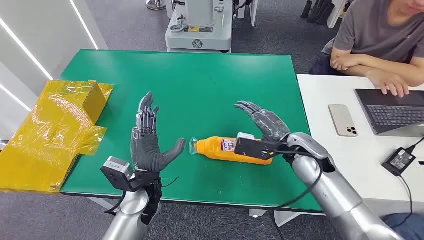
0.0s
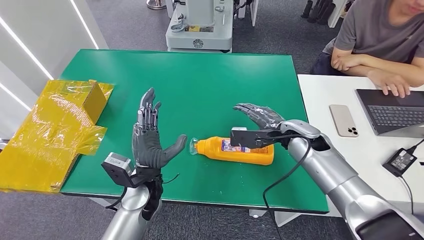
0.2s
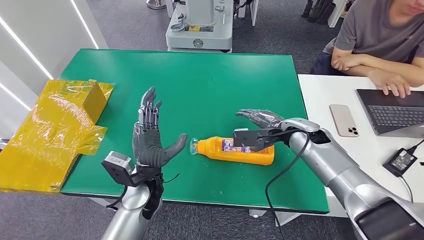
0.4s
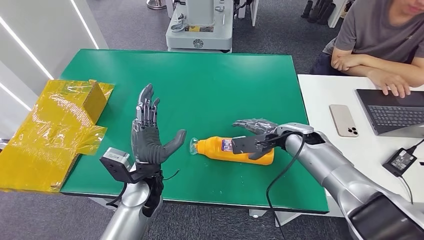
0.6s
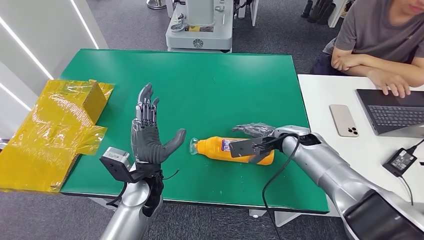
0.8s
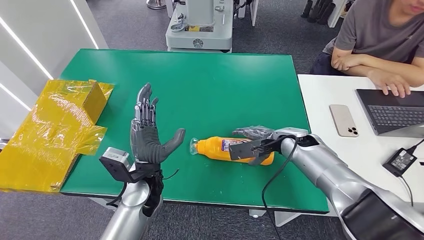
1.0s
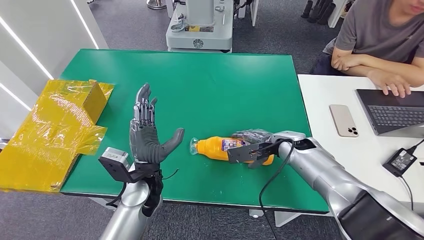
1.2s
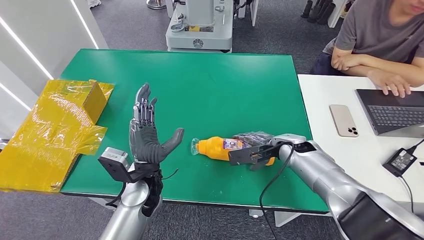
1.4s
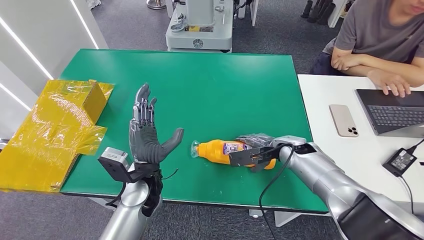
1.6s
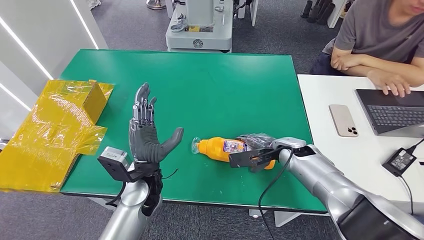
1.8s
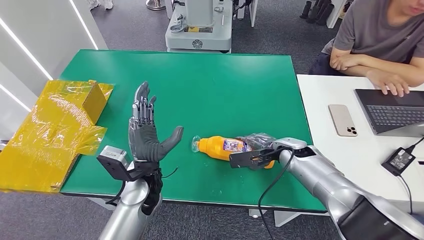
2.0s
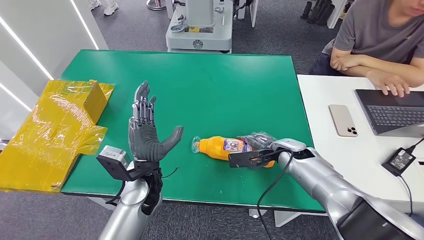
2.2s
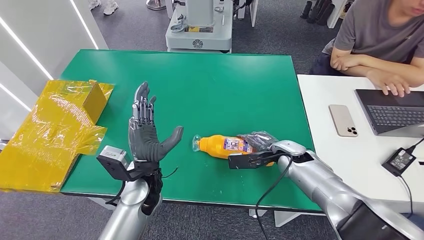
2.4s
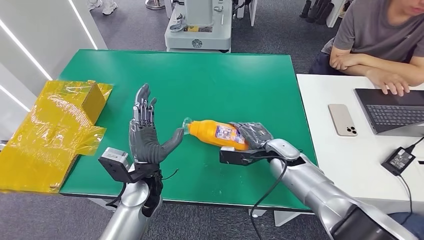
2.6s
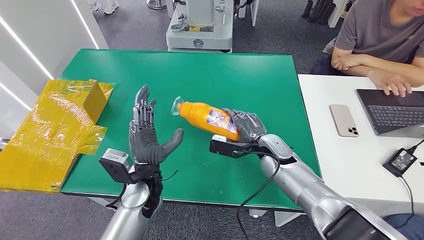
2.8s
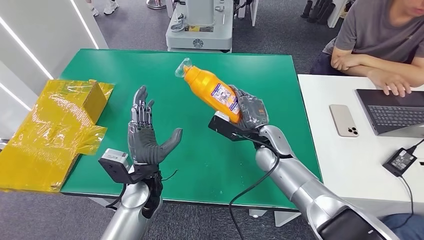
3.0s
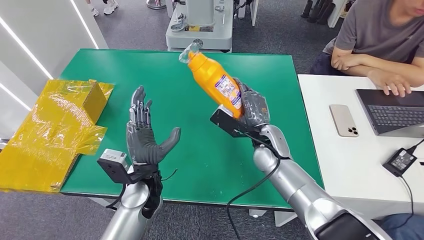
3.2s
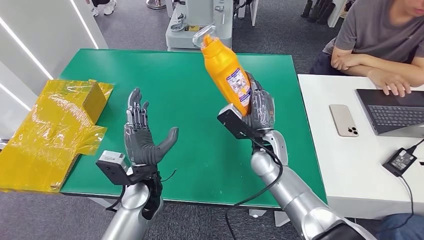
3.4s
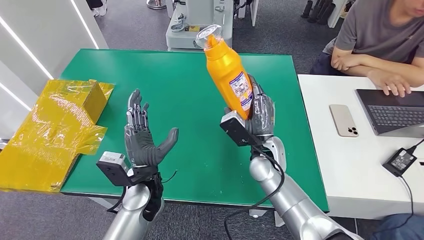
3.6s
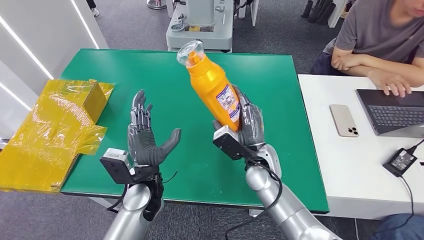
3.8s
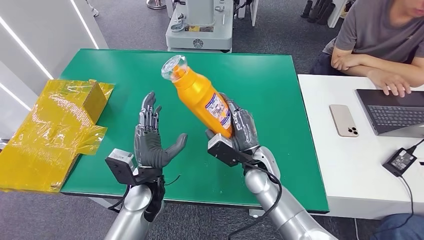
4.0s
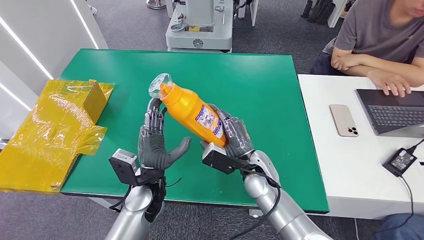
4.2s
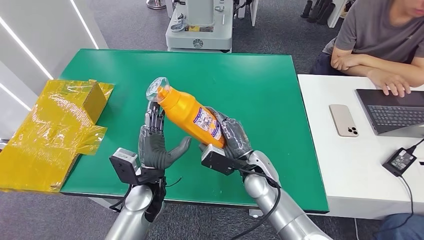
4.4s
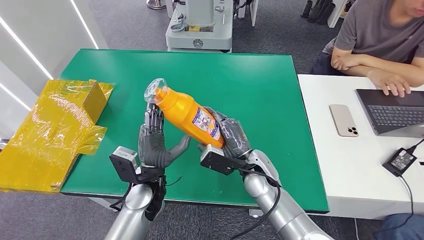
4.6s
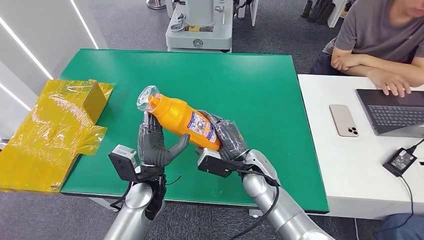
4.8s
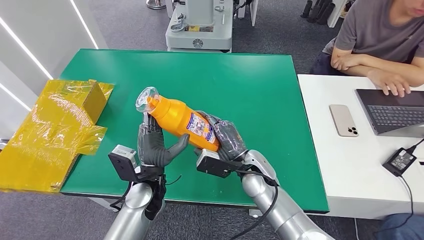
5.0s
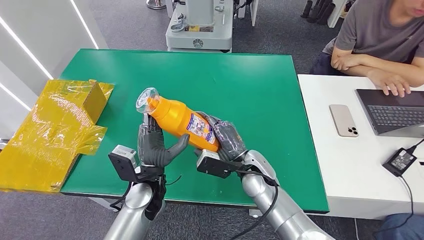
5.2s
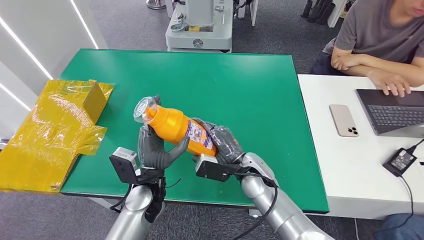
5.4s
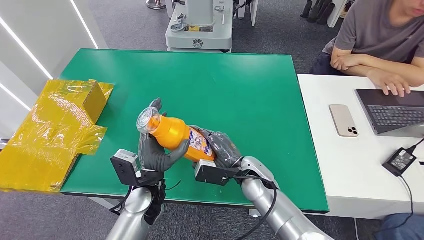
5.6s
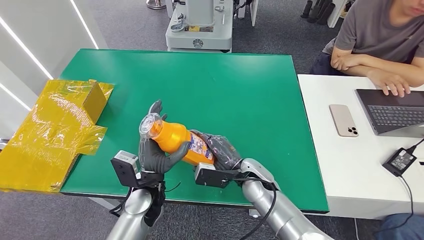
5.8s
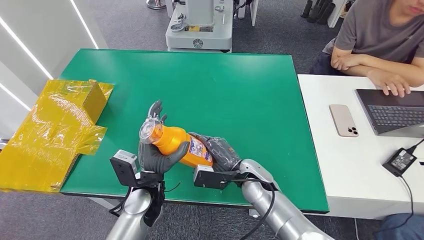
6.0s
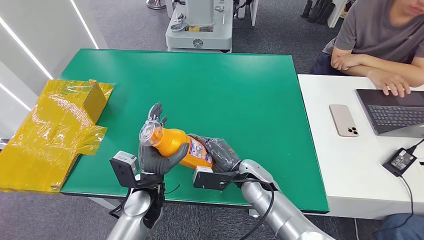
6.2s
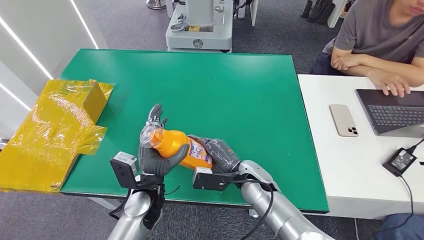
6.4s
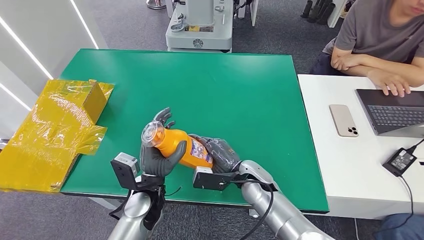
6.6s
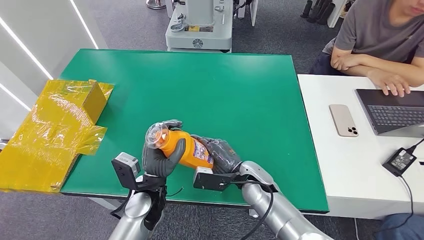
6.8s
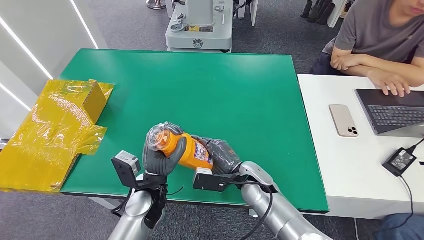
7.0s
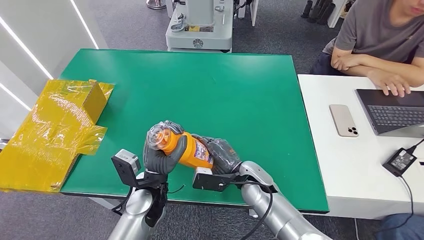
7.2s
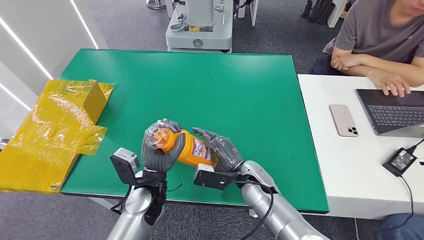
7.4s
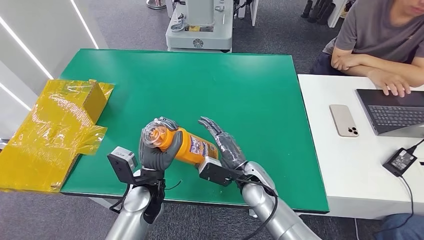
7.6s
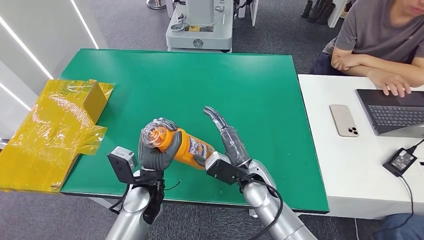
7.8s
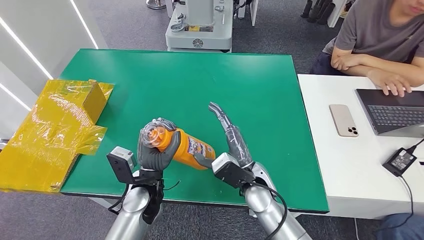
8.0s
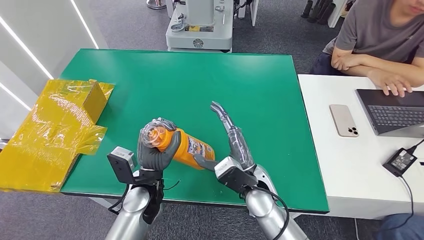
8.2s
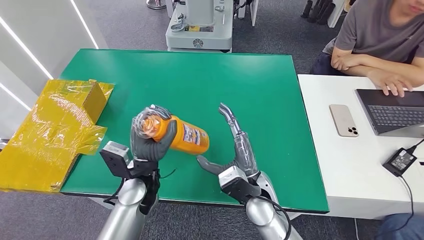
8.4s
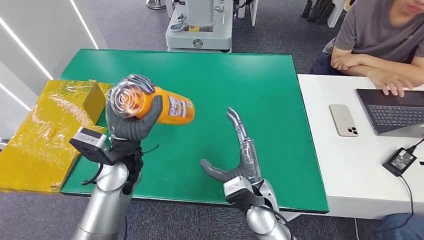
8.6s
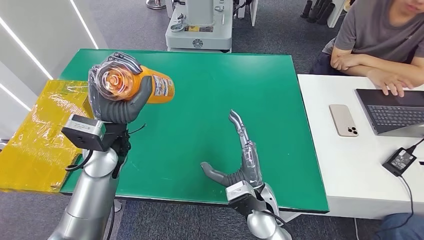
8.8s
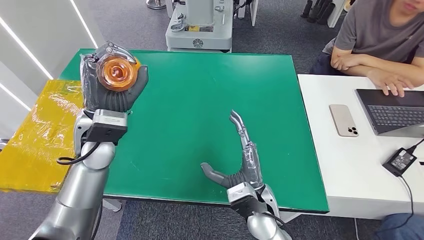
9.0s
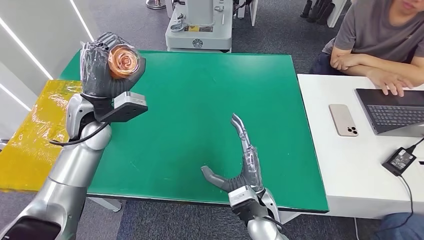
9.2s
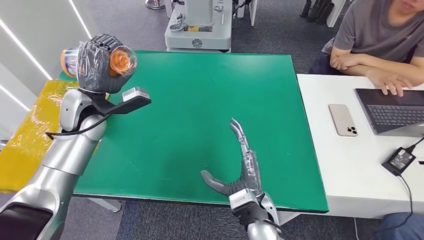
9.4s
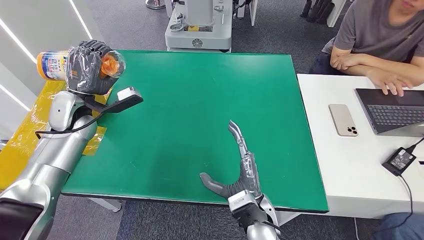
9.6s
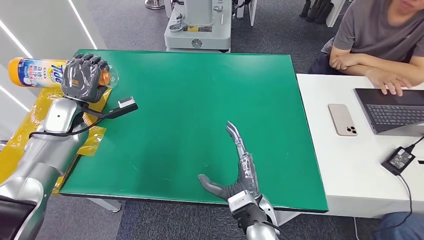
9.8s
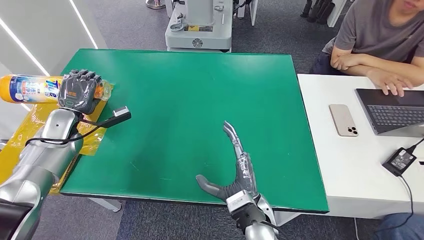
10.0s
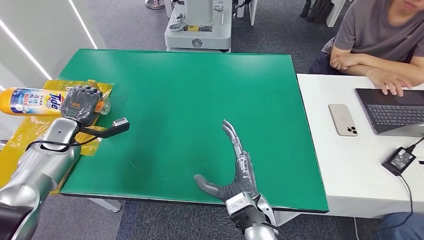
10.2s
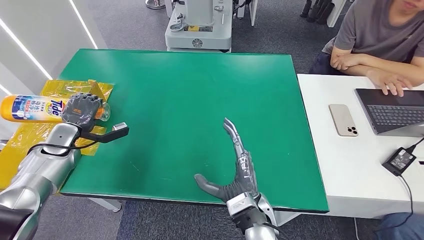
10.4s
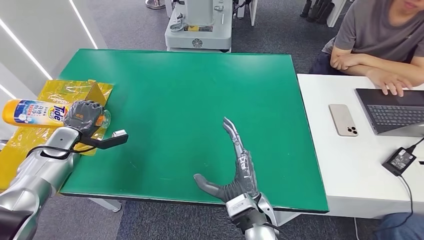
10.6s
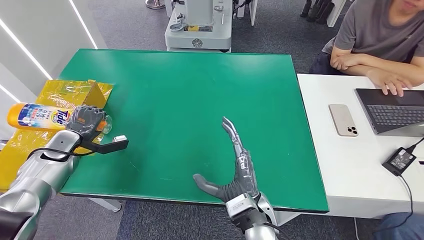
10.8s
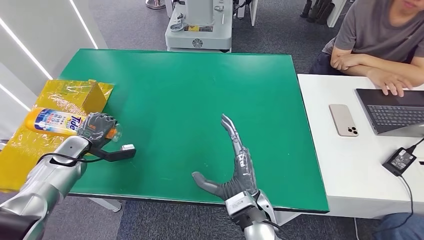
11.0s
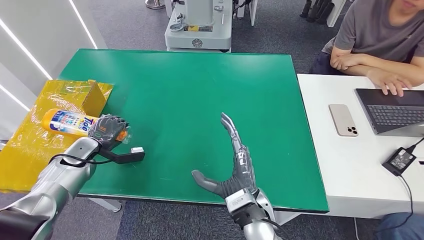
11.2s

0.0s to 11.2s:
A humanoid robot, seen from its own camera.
Step, 0.0s to 4.4s: Pick up the bottle from the table.
Step, 5.2s to 11.2s: Turn the bottle to the front side.
1.6s to 3.2s: The right hand heads to the left, covering approximately 10 cm.
3.2s to 4.8s: The right hand is displaced backward by roughly 5 cm.
4.8s to 6.4s: The hands move only a little.
9.6s to 11.2s: The left hand moves downward and to the left, about 15 cm.
